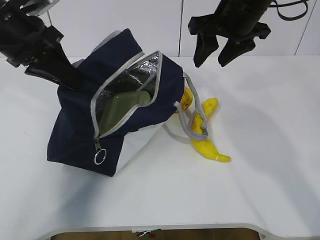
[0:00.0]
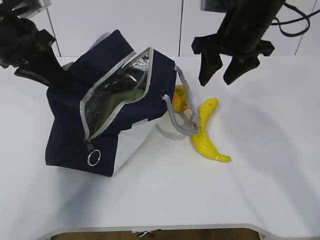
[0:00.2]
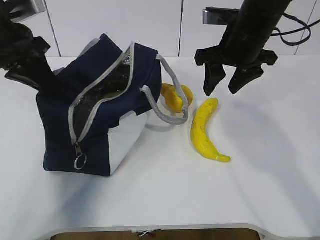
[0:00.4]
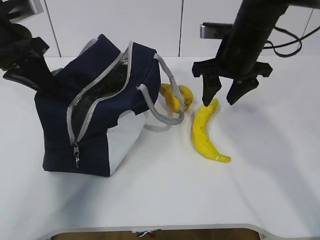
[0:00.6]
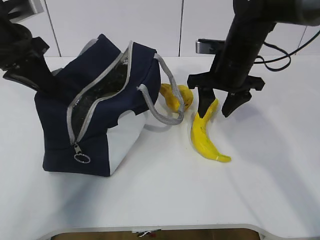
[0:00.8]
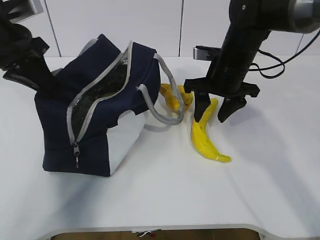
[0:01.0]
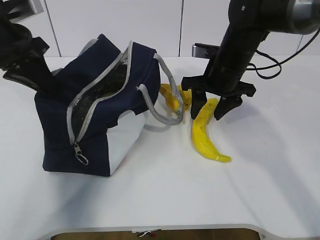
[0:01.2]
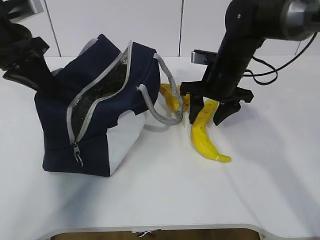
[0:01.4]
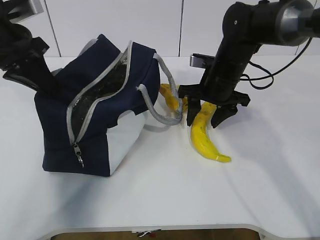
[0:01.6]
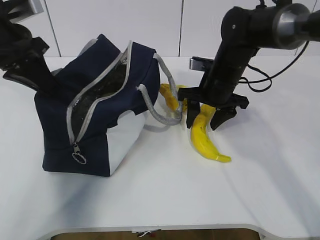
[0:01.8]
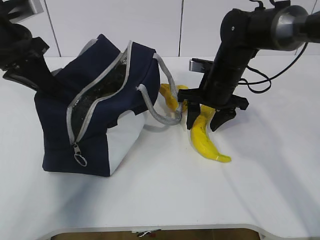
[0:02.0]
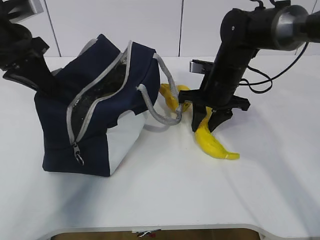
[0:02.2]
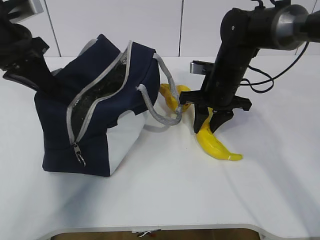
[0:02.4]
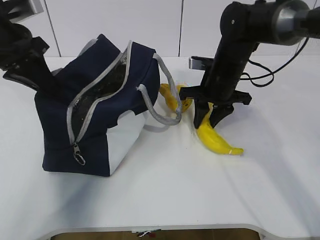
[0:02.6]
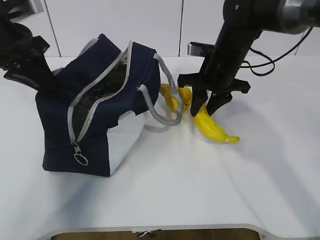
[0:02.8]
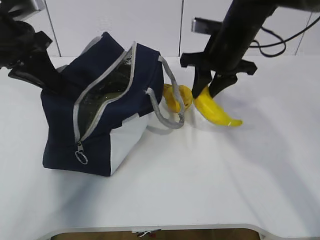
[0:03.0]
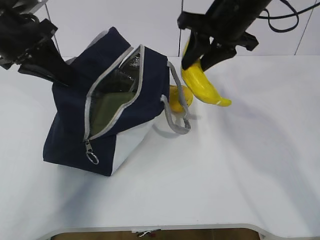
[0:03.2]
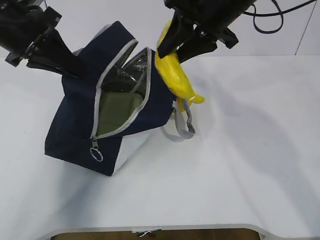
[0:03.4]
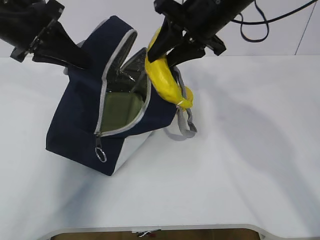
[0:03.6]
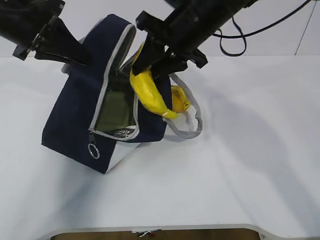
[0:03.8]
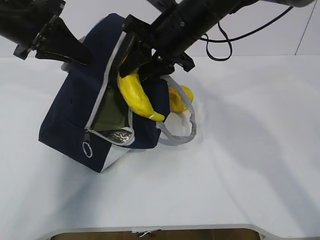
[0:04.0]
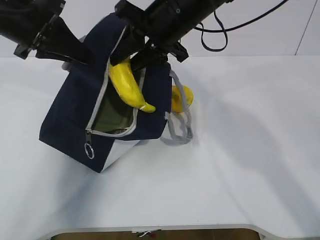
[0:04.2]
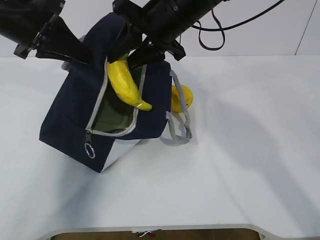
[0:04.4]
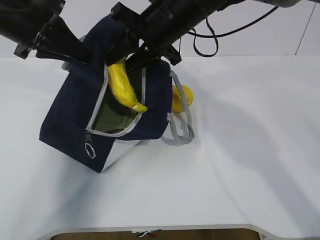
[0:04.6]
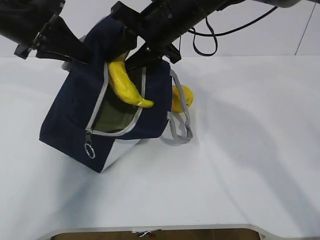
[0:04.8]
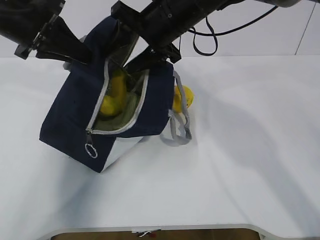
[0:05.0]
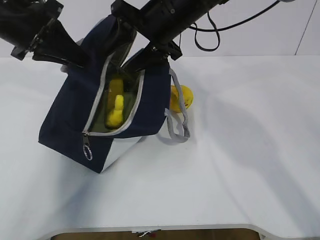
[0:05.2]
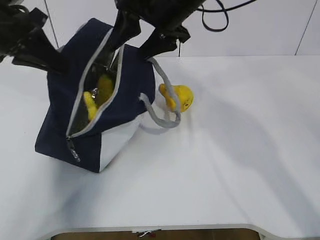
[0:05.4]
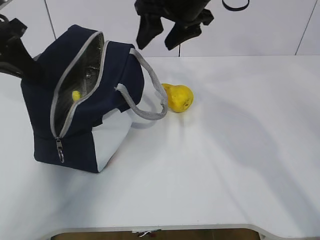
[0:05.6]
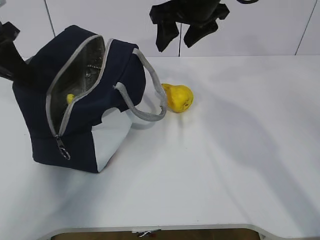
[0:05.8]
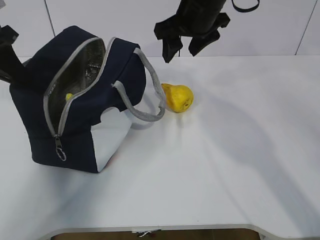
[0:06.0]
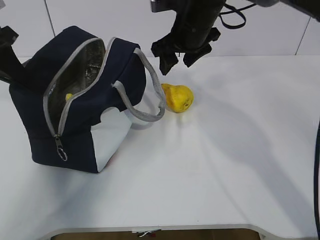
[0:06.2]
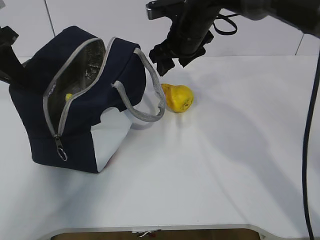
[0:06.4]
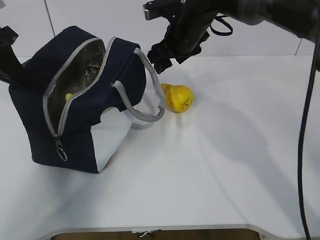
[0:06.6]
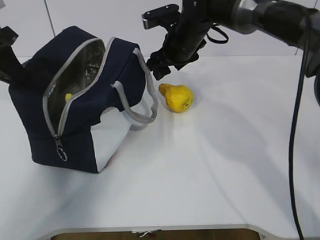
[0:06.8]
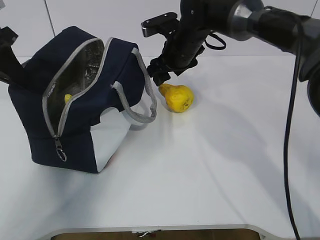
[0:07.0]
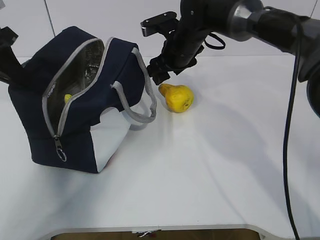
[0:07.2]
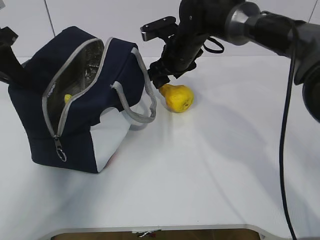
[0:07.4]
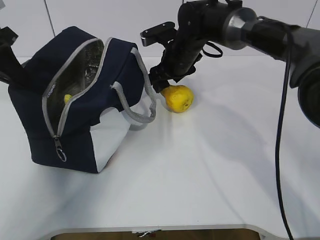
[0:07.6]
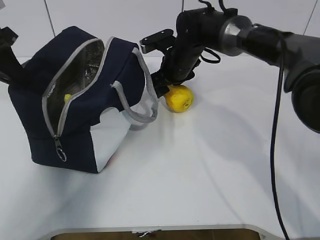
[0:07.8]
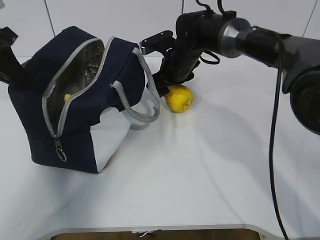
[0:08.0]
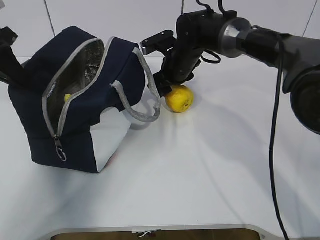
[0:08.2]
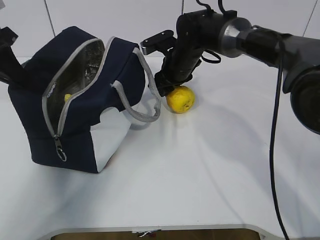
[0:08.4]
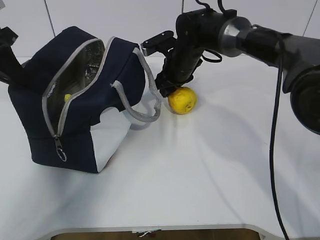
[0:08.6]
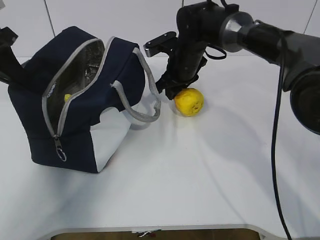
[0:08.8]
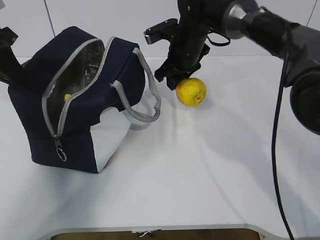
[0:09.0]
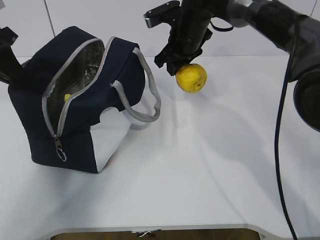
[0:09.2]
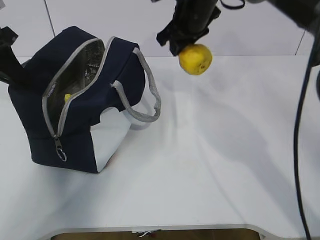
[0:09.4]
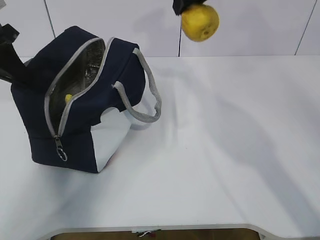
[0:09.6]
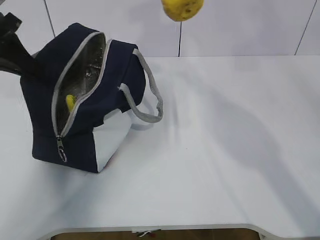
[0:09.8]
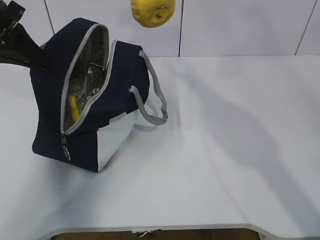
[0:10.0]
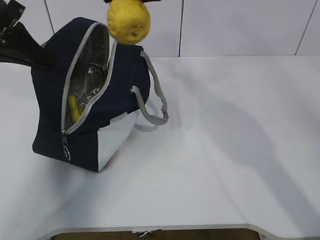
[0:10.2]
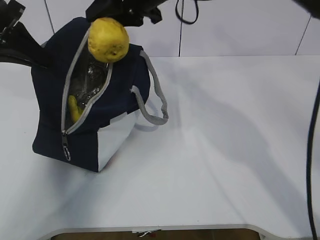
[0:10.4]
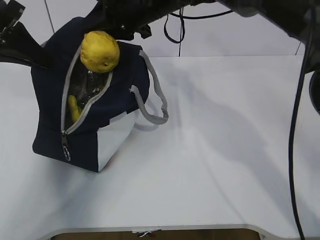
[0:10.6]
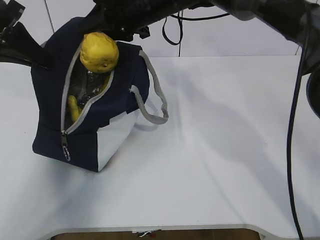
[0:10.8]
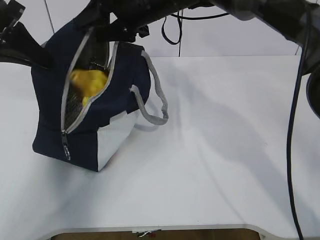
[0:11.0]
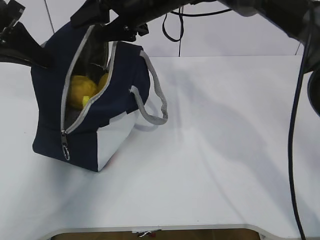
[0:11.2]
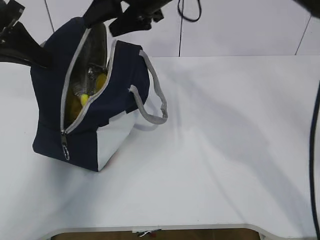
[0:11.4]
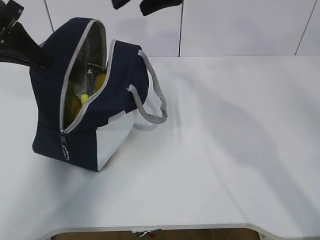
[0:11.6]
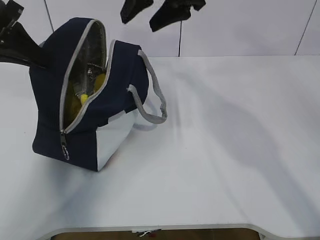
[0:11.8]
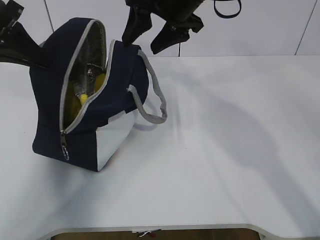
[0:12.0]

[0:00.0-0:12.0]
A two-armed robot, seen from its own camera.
Step, 0.8 to 2.8 s: Grab the pear with your right hand.
Step, 3.2 to 5.4 s: Secure the lunch bag with your left hand.
Step, 5.6 to 6.4 s: Grab the lunch bag with your right hand.
Step, 6.8 to 8.6 s: Move the lunch bag to the right.
0.0 to 1.6 s: The right gripper goes roughly 15 cm downward.
1.6 to 3.0 s: The right gripper moves upward, some 5 cm, and closes.
3.0 to 4.4 s: The right gripper moves to the left and upward, roughly 10 cm.
4.4 to 6.0 s: The left gripper heads to the left, covering approximately 10 cm. Meanwhile the right gripper ends up roughly 5 cm from where it was, and opens its fingers.
6.0 to 7.6 s: The right gripper moves downward and forward, roughly 15 cm.
7.6 to 9.0 s: The right gripper closes up.
9.0 to 10.4 s: The right gripper goes approximately 15 cm upward.
10.4 to 12.0 s: The right gripper travels downward and back again, some 5 cm each way, and opens up.

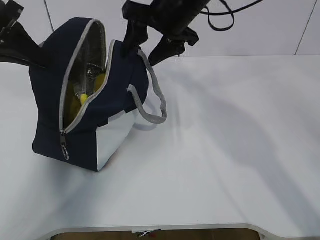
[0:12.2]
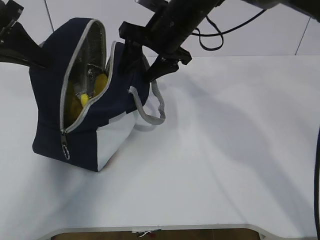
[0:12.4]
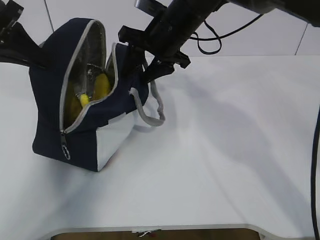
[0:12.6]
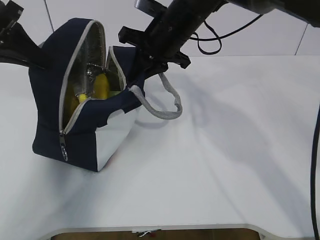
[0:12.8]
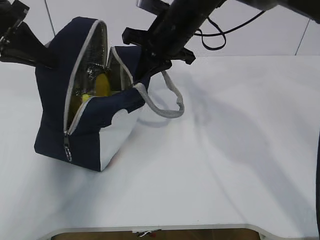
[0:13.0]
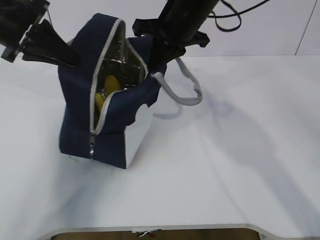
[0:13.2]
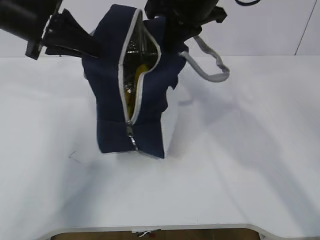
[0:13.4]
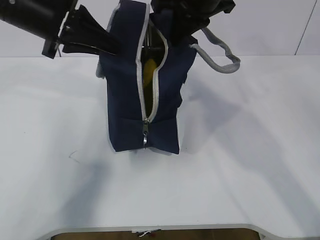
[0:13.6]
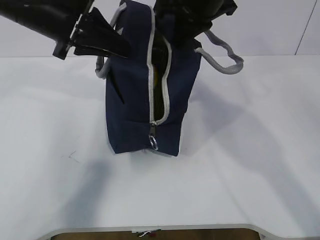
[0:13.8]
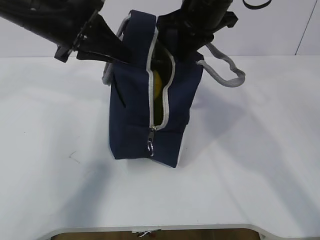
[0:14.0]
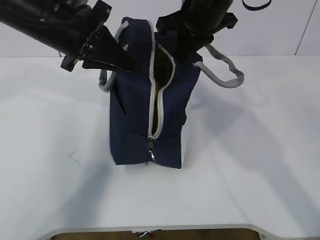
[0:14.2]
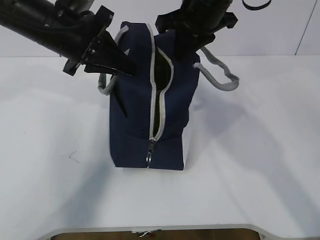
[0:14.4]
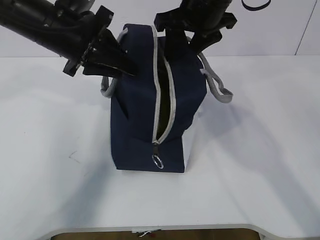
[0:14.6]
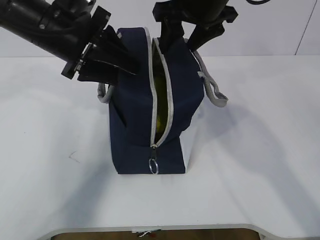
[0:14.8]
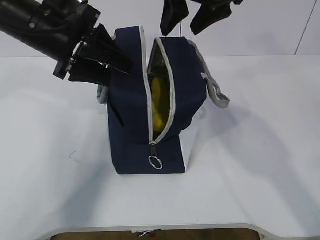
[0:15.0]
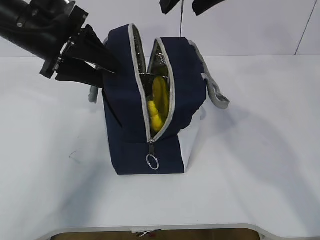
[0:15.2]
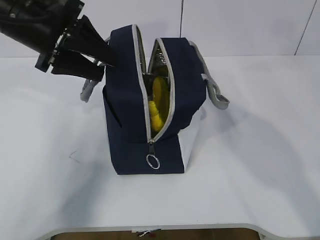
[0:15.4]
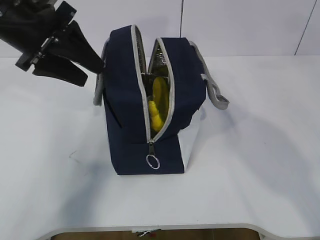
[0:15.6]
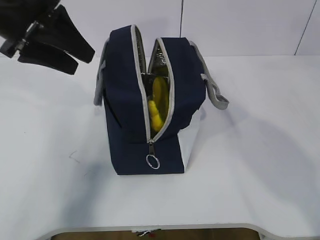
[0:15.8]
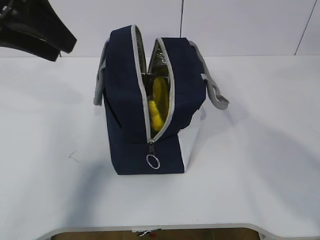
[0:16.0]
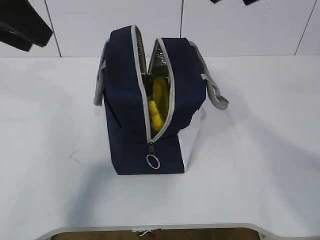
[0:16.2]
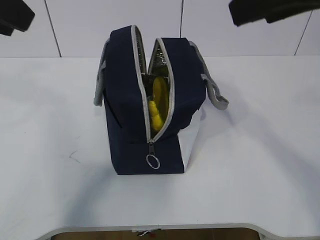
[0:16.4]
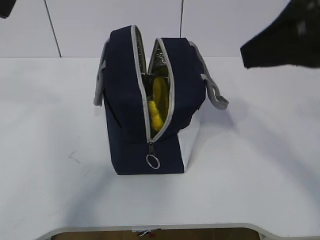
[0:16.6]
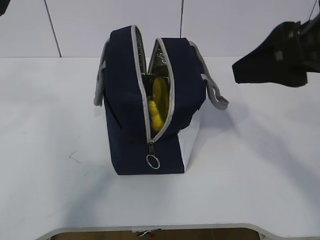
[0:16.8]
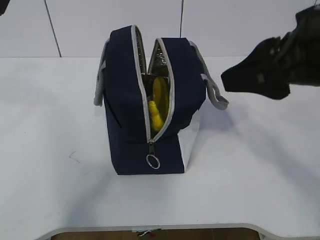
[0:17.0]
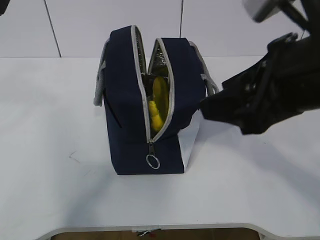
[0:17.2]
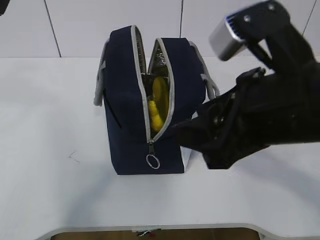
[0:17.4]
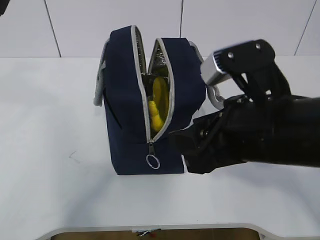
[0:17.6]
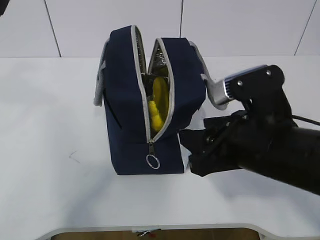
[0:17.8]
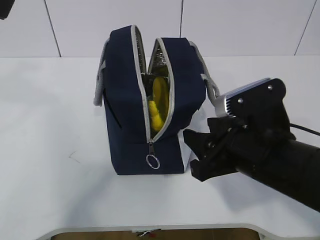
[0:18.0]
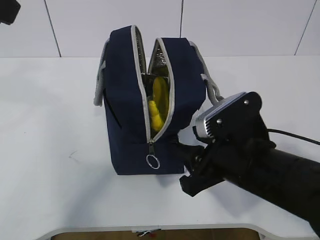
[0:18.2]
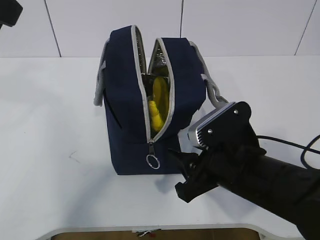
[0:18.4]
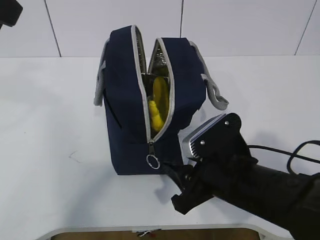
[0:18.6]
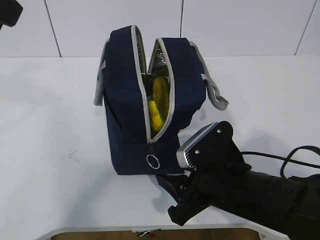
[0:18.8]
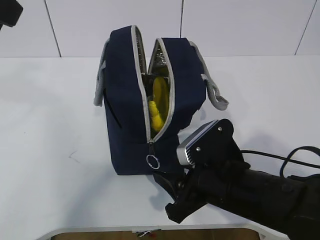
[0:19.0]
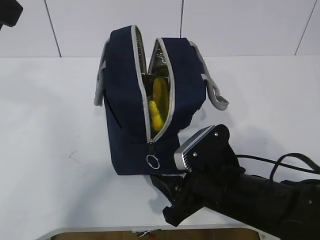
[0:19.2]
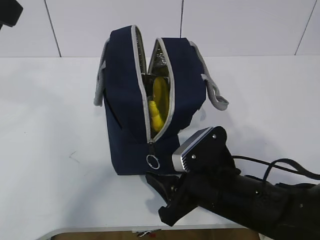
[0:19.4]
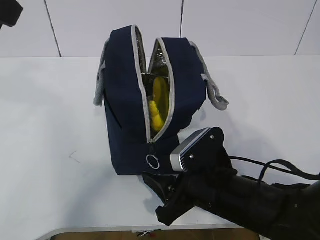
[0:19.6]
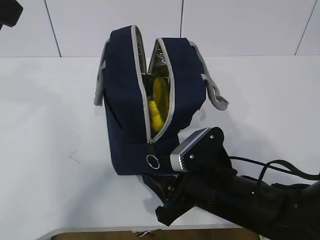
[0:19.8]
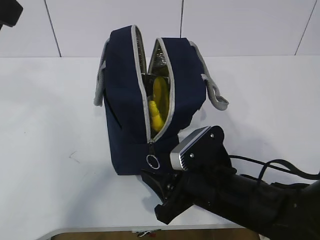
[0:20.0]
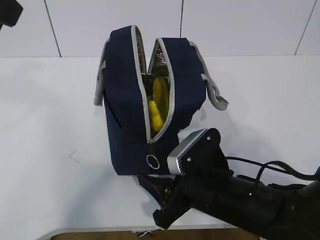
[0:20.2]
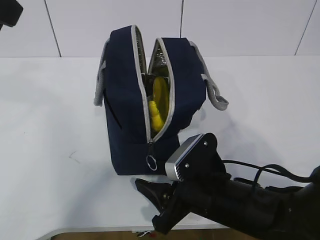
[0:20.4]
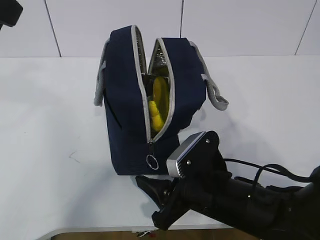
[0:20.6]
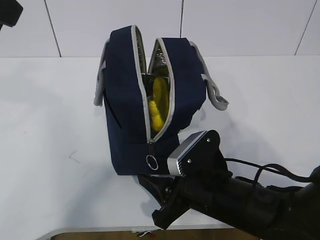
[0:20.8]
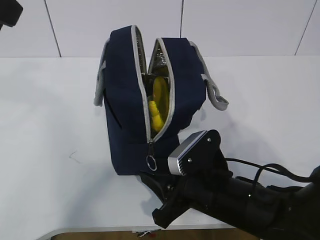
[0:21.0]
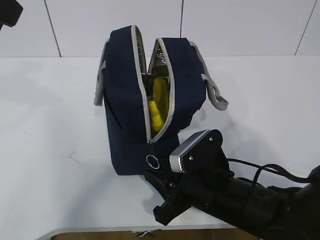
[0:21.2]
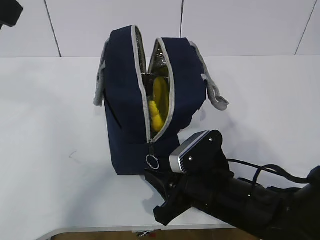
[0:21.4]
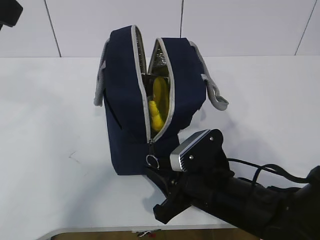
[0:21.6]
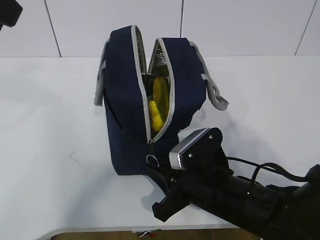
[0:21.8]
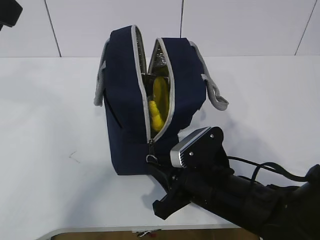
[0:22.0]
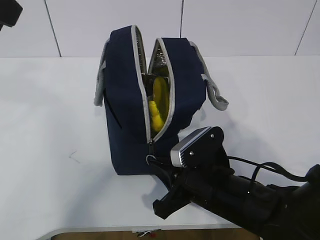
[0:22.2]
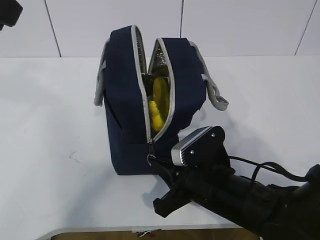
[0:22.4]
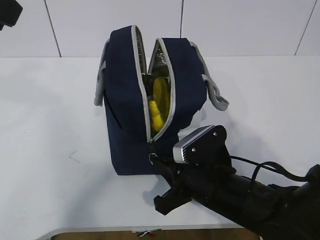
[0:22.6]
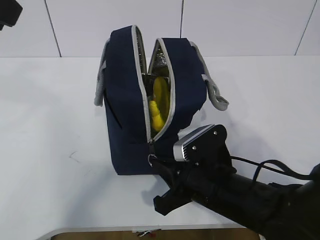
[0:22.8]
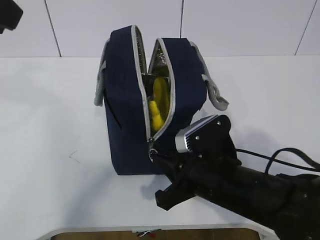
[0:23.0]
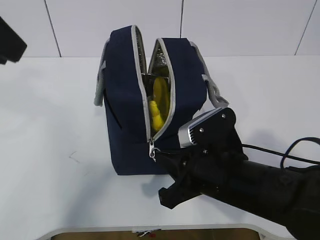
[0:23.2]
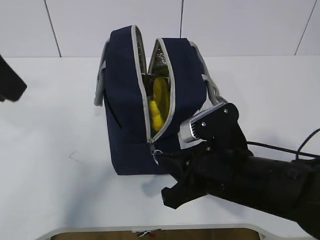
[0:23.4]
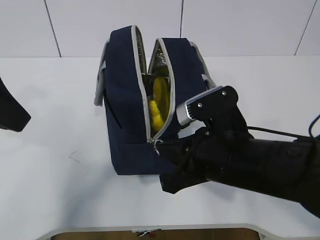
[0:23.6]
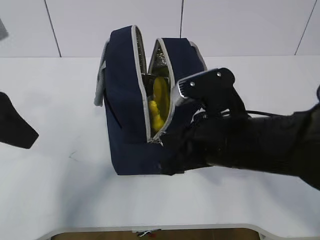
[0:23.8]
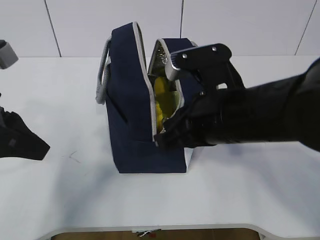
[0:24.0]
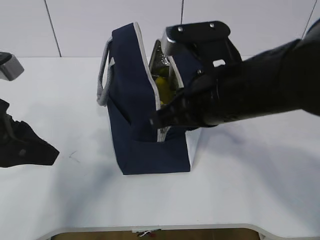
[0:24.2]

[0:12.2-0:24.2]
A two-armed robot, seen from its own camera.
Step, 12.2 to 20.6 s: Grab the lunch bag with your left hand.
12.2 to 13.8 s: The right gripper reaches some 5 cm downward, then returns, and closes; the left gripper is displaced to the right by roughly 10 cm.
13.8 to 15.2 s: The left gripper opens up; the right gripper heads upward, covering roughly 5 cm, and opens its fingers.
15.2 to 16.6 s: The right gripper is displaced backward by approximately 20 cm; the left gripper shifts approximately 20 cm upward and backward.
16.6 to 18.2 s: The right gripper moves downward, about 20 cm.
18.2 to 19.8 s: The right gripper goes roughly 5 cm downward.
19.8 to 21.2 s: Neither gripper changes place.
21.2 to 22.6 s: The right gripper closes.
22.6 to 24.2 s: The left gripper goes roughly 20 cm downward; the right gripper shifts about 15 cm upward.
